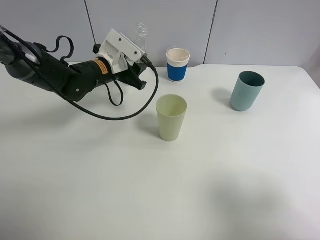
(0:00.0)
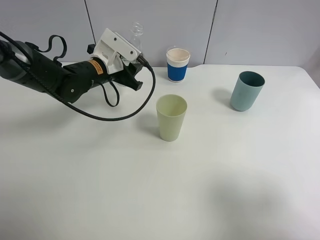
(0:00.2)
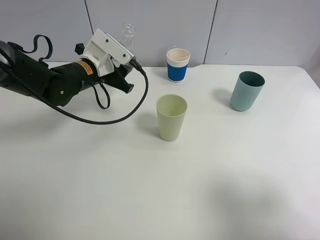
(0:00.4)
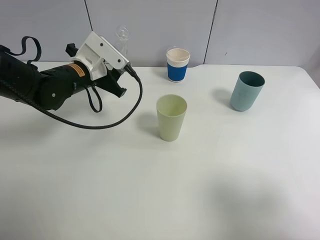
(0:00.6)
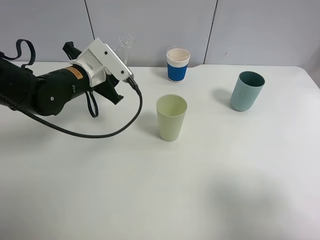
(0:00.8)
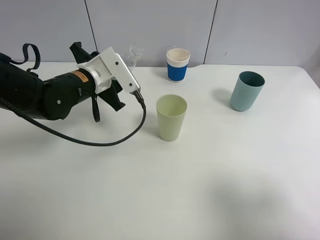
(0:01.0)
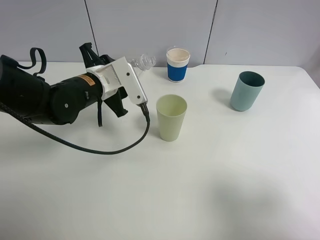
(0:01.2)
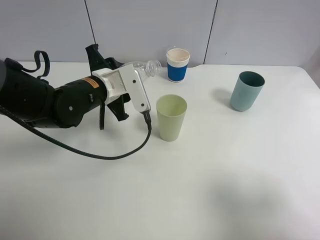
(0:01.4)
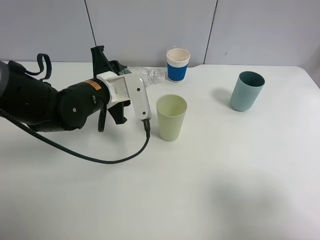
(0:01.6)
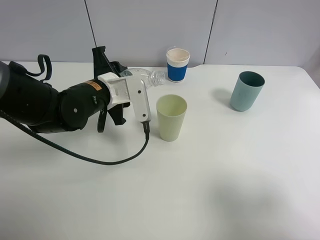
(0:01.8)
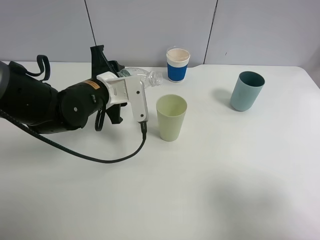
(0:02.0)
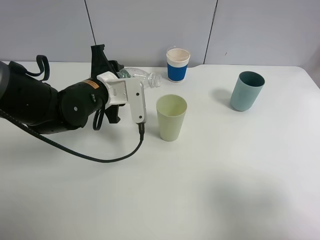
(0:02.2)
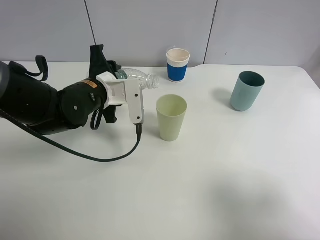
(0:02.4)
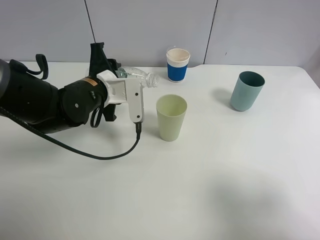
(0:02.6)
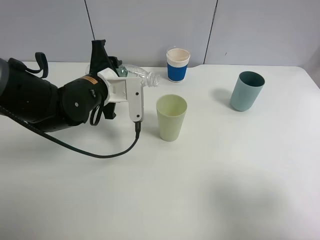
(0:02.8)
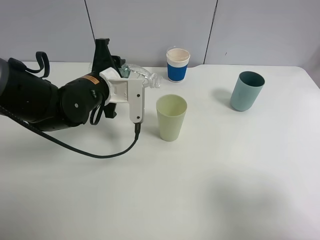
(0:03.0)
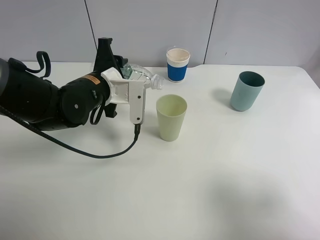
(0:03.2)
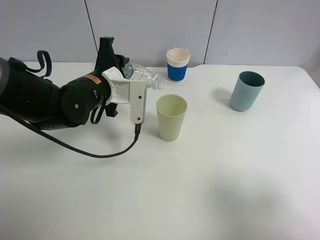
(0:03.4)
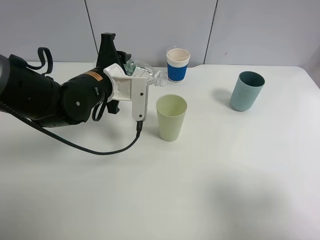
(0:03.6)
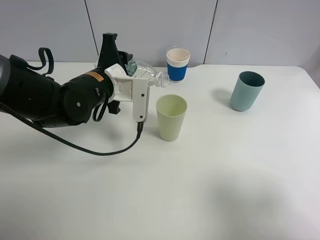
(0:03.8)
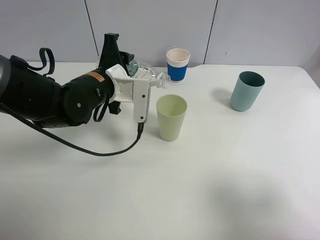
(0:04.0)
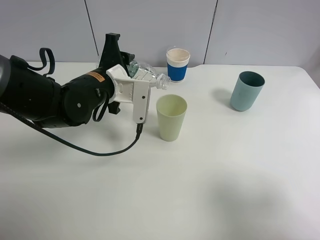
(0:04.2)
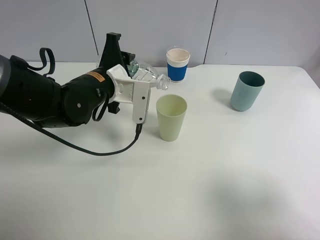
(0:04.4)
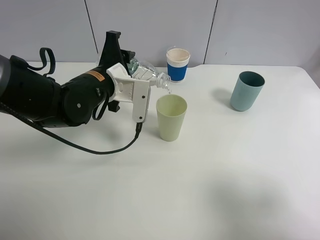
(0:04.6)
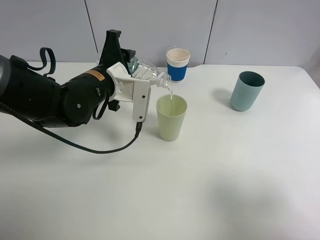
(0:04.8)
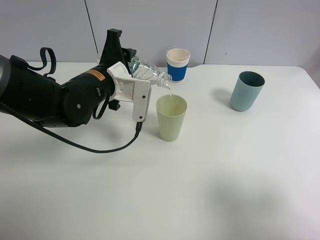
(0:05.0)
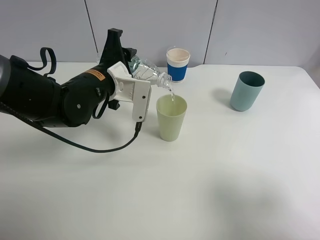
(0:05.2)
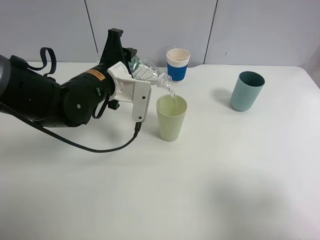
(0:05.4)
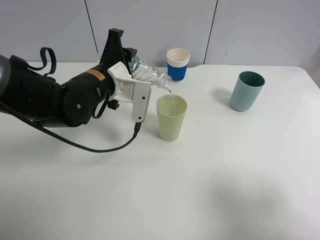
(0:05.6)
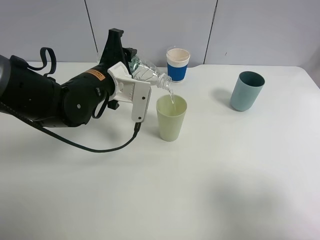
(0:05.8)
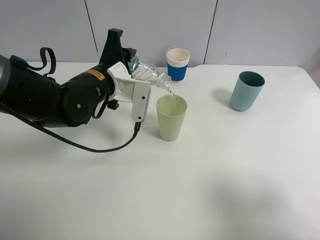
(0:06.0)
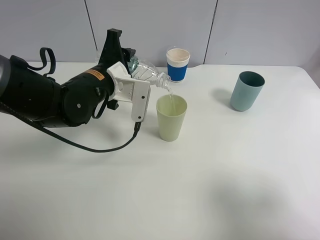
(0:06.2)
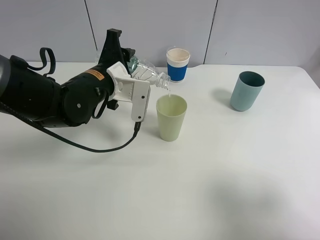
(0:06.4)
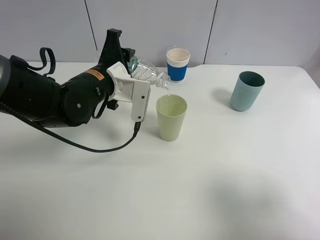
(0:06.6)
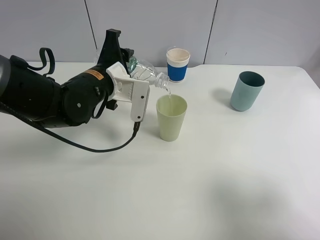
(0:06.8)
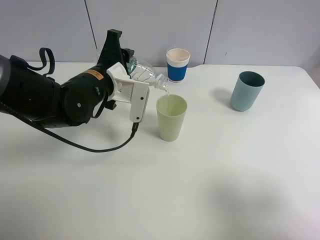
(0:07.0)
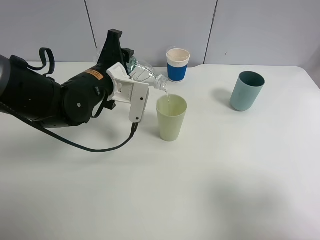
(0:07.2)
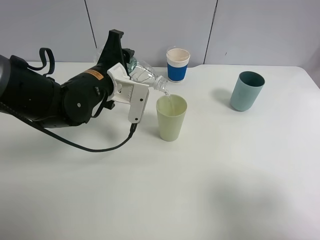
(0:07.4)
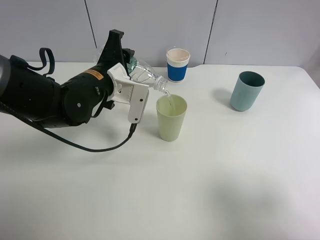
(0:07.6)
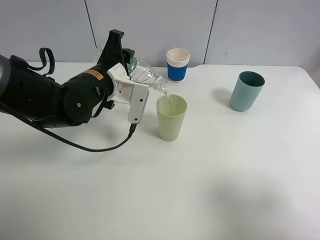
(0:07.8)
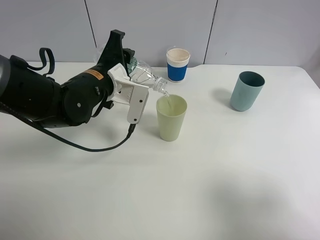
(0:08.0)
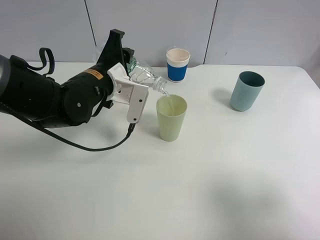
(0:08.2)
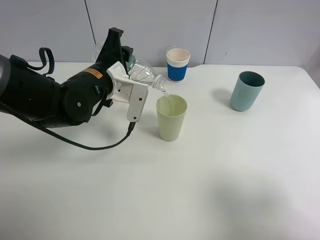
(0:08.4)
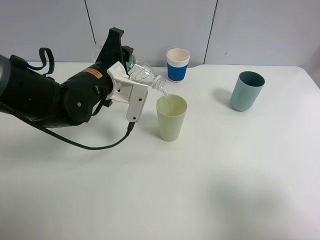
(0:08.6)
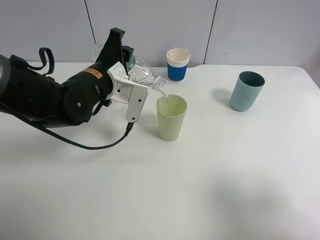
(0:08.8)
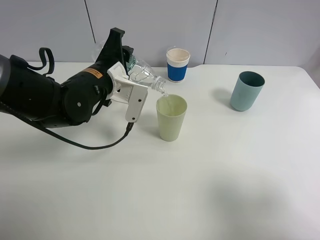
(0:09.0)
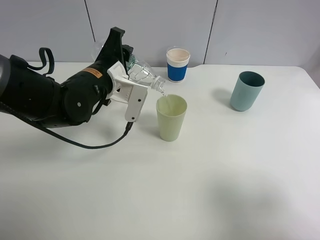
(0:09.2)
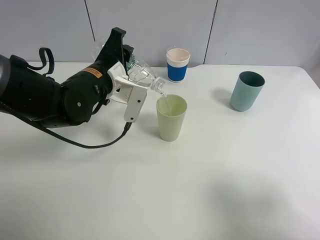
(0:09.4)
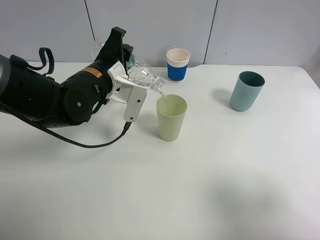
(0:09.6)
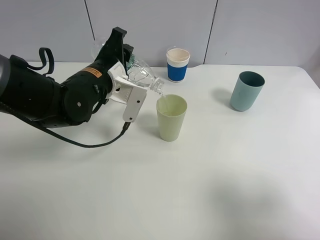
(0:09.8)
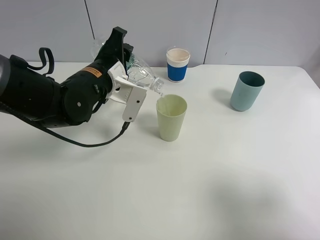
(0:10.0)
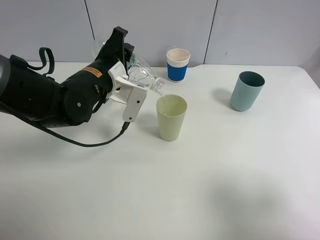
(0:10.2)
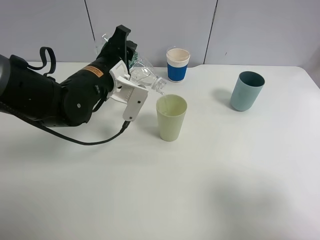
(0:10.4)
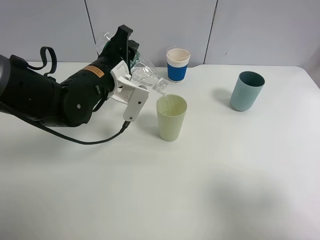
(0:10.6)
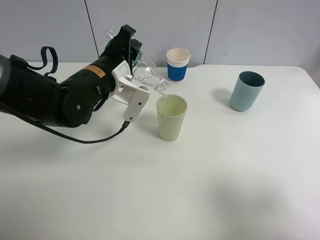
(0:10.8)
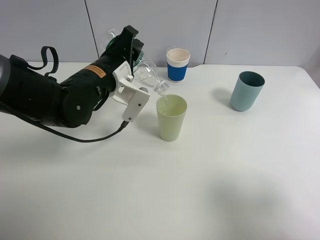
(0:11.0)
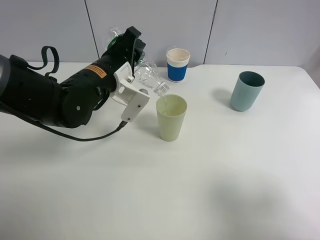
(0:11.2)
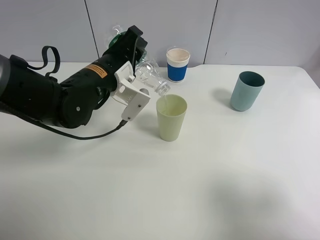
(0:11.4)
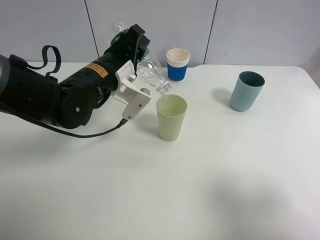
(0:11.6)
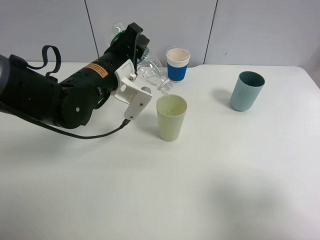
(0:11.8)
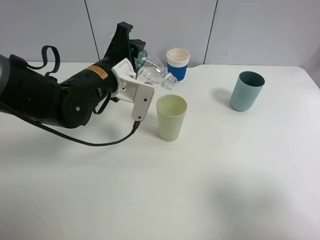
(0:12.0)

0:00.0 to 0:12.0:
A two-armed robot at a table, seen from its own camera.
Task of the whole recording: use a clamp to hold the bottle of the drink, pour the beverage into a random cup, then clamp the cup containing the drink and pour the drink into another random cup.
0:00.0 to 0:01.6: The left gripper is displaced backward by about 10 cm.
0:01.6 to 0:03.0: The grippers stay close to where they were, moving slightly.
0:03.0 to 0:04.4: The grippers move only a little.
0:04.4 to 0:06.0: Both grippers stay put.
0:06.0 to 0:07.6: Both grippers stay put.
0:07.6 to 0:09.0: Neither gripper changes place.
0:09.0 to 0:10.4: The grippers stay close to where they were, moving slightly.
0:10.4 to 0:12.0: The grippers stay close to where they were, moving slightly.

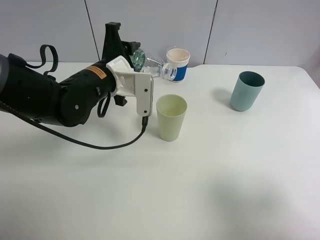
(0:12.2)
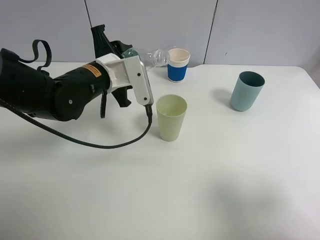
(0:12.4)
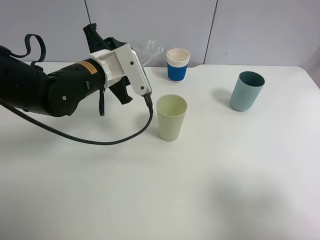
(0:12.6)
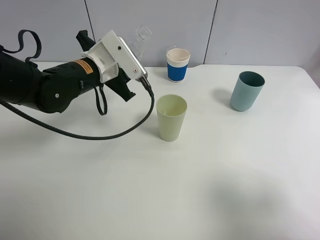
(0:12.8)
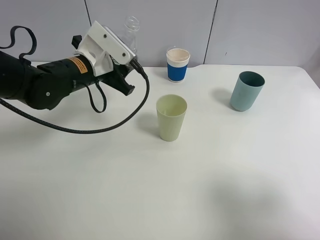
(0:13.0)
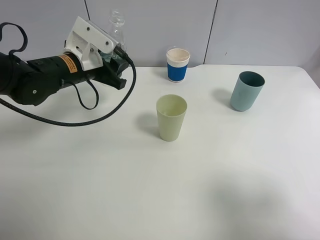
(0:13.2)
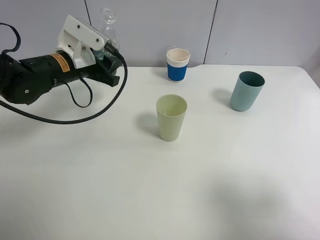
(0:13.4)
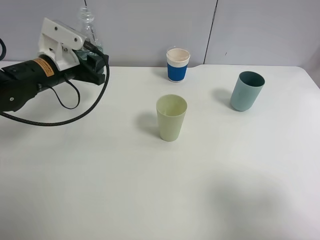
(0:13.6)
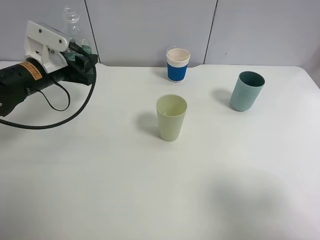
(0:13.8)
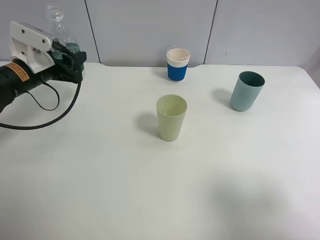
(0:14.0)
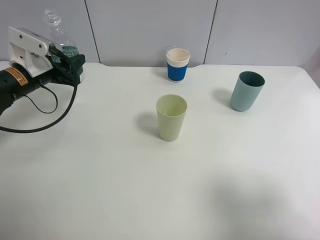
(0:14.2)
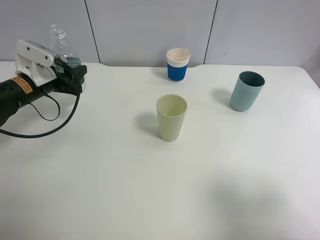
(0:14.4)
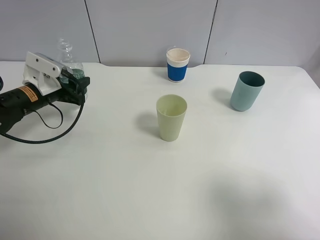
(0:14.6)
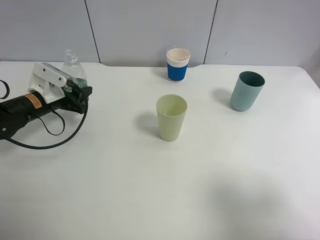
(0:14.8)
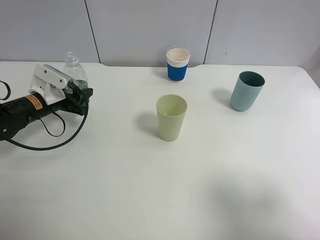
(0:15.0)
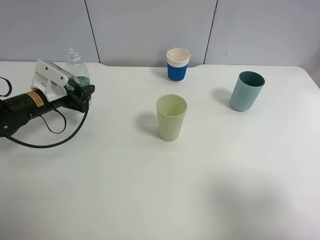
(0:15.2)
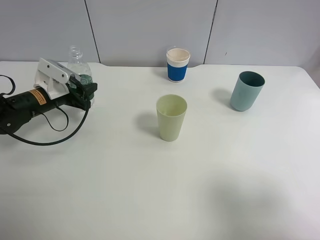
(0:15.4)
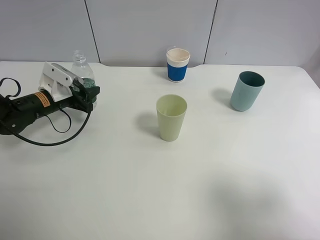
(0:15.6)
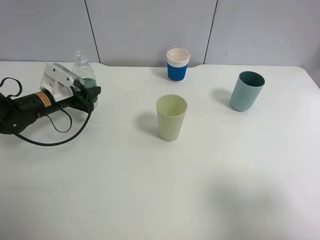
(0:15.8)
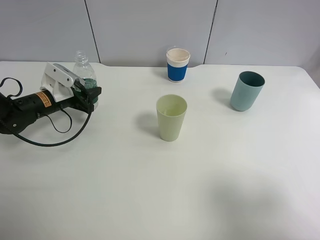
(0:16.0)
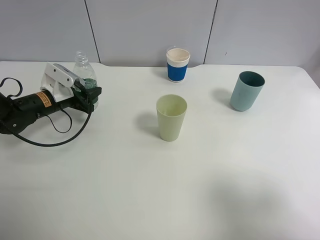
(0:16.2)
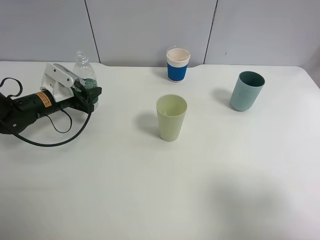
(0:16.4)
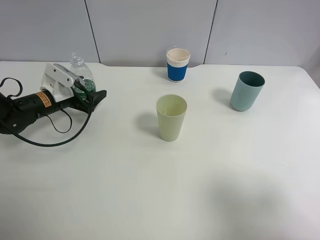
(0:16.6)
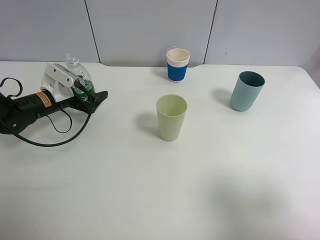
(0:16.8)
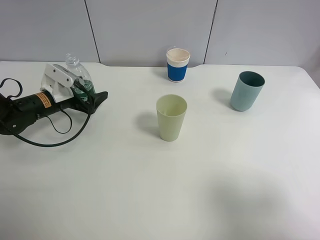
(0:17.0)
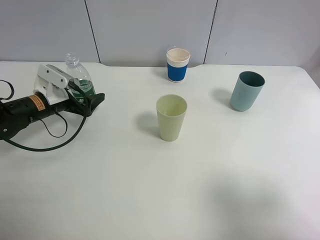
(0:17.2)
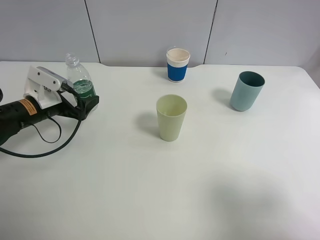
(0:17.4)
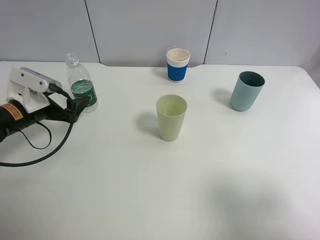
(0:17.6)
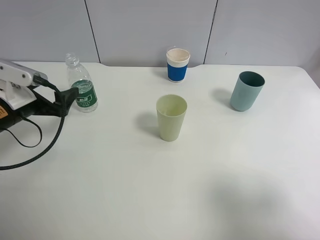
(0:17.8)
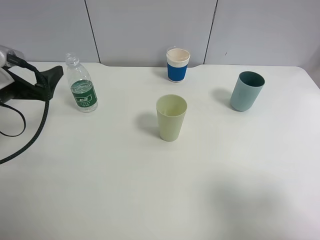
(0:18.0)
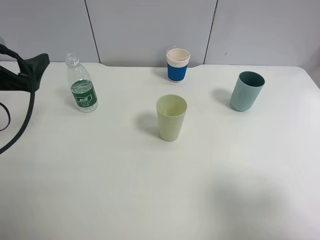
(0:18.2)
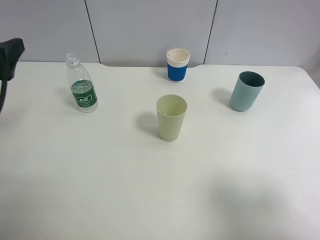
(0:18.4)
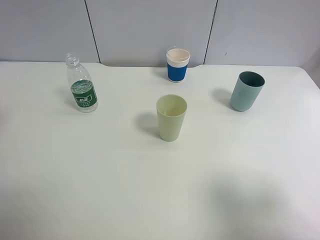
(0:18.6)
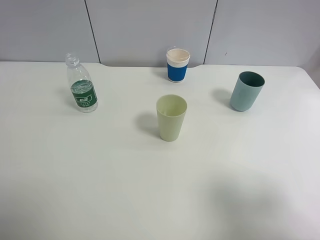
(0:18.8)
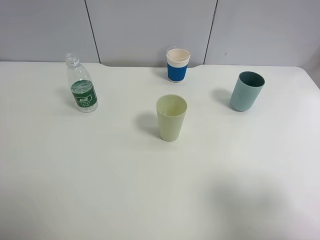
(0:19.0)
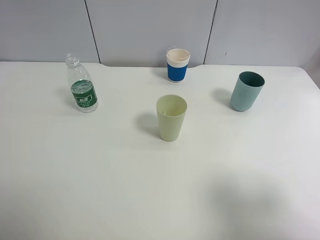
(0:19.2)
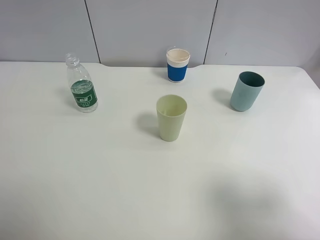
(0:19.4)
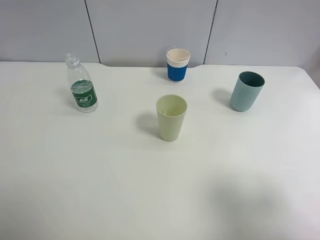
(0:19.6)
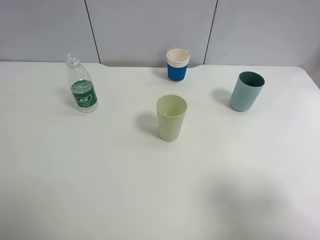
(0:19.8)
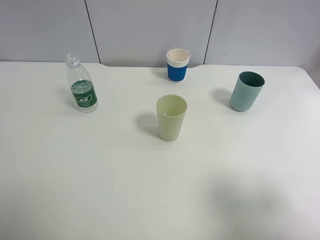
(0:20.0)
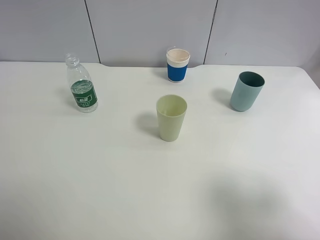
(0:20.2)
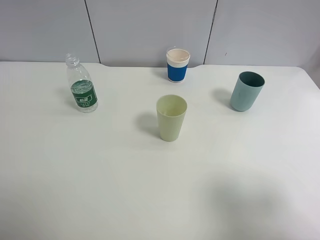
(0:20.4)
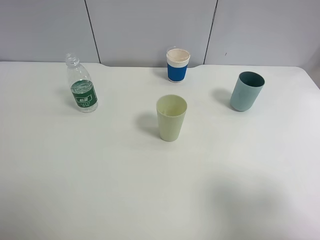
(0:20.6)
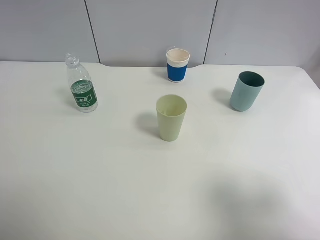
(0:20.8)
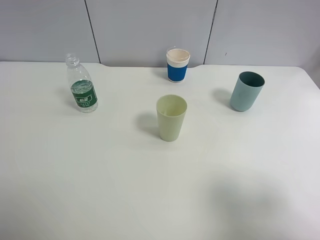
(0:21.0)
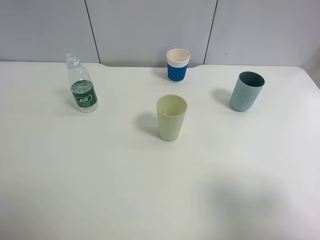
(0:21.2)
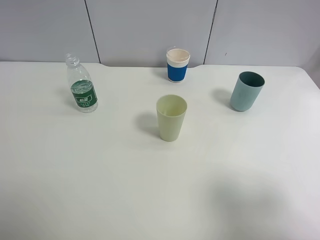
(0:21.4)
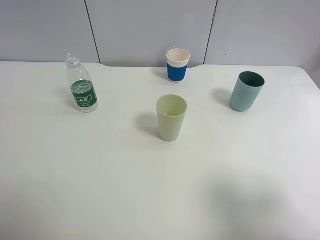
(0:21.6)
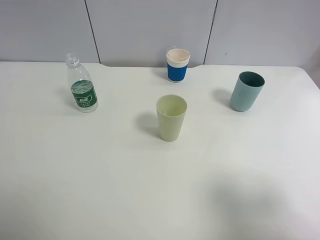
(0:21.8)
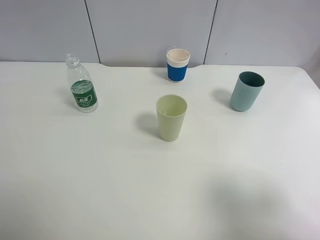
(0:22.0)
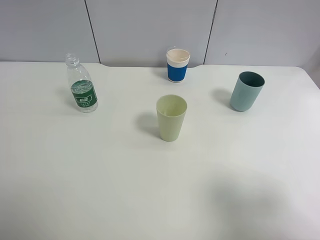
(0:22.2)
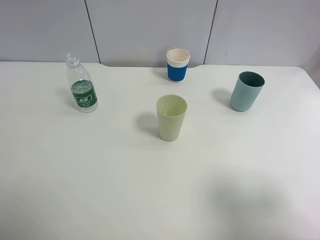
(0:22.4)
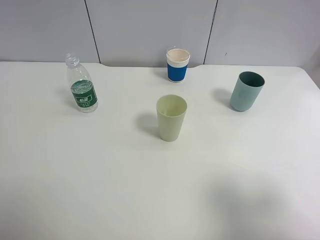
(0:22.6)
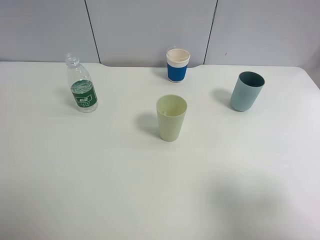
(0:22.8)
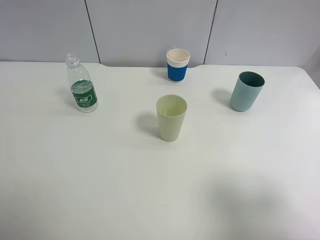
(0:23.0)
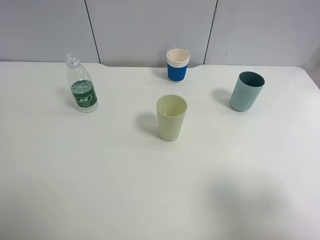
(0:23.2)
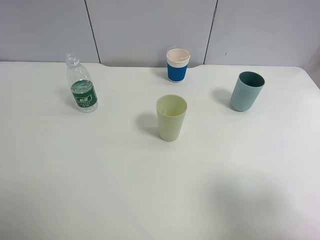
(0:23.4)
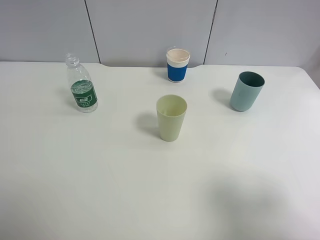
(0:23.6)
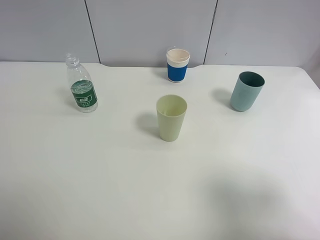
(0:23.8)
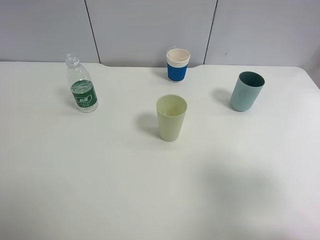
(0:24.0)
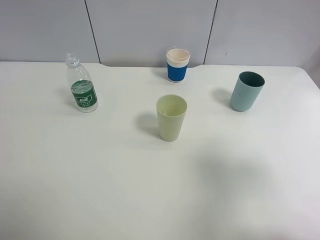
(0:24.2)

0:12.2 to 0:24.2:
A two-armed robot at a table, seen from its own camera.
Task of the whole recording: use a clamp to hold the bottle of the drink, pour the beverage into a random cup, then clamp the cup containing the drink and pour the drink into another random cup.
Step, 0:12.2 to 0:17.0: Place the water bottle on the table with left gripper.
0:12.2 to 0:13.8: The left gripper is displaced to the left by some 15 cm.
0:13.8 to 0:15.2: The left gripper shifts approximately 10 cm downward.
0:15.2 to 0:16.6: The left gripper opens its fingers.
0:16.6 to 0:18.2: The left gripper moves upward and backward, roughly 20 cm.
0:18.2 to 0:19.8: The left gripper heads backward and upward, covering roughly 20 cm.
0:21.2 to 0:22.6: Neither gripper changes place.
0:22.6 to 0:24.2: The right gripper shifts roughly 5 cm forward.
